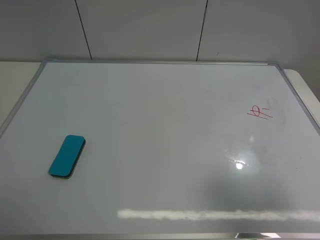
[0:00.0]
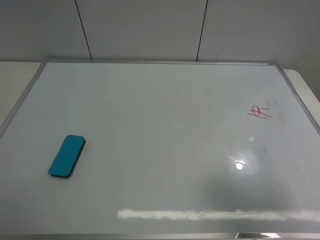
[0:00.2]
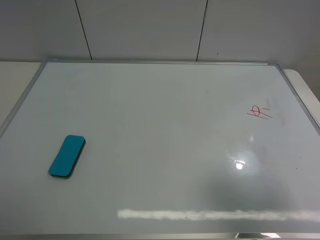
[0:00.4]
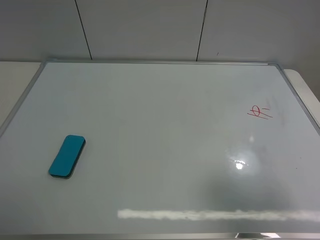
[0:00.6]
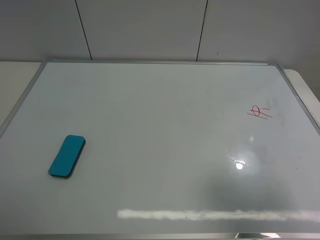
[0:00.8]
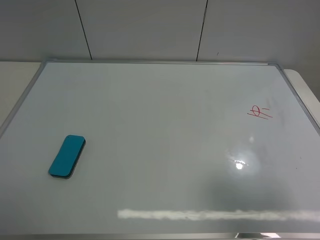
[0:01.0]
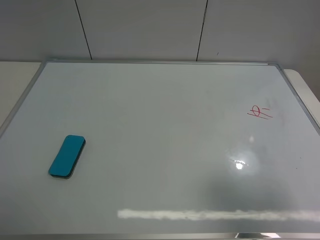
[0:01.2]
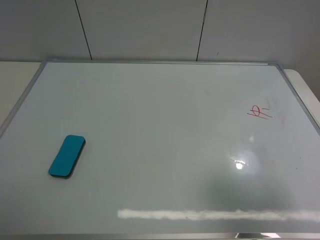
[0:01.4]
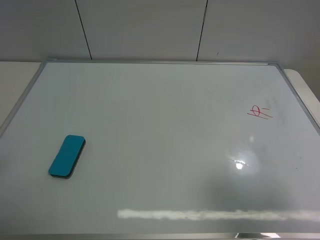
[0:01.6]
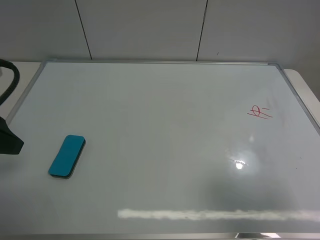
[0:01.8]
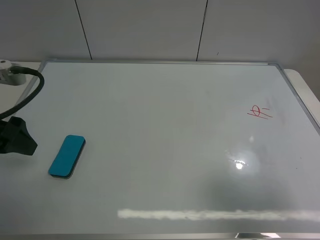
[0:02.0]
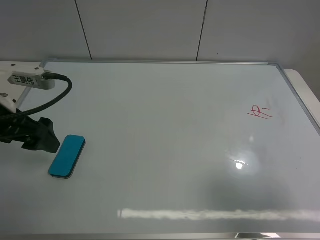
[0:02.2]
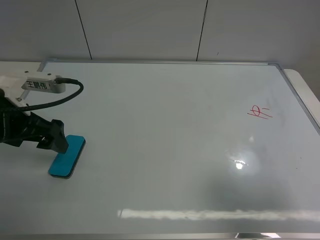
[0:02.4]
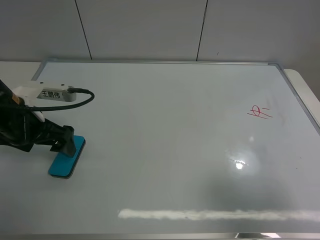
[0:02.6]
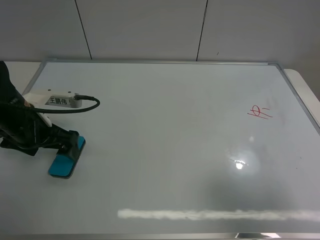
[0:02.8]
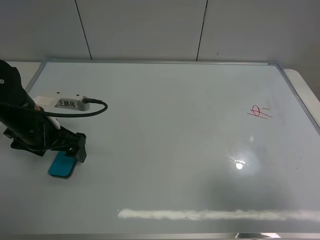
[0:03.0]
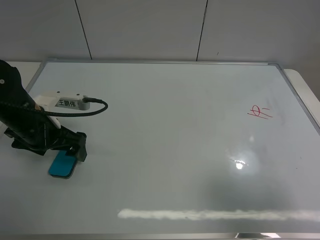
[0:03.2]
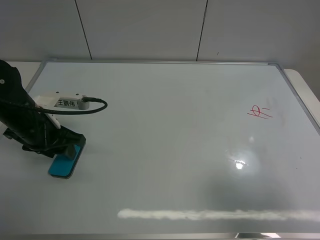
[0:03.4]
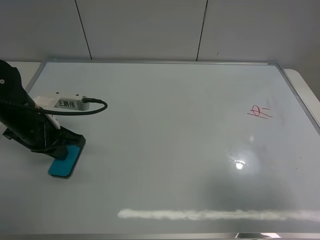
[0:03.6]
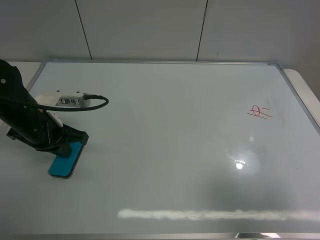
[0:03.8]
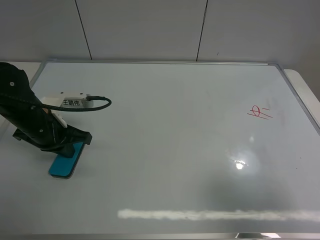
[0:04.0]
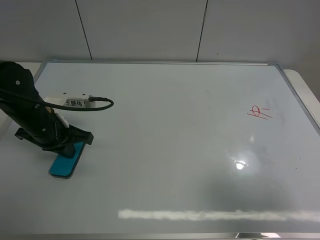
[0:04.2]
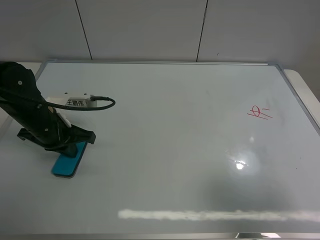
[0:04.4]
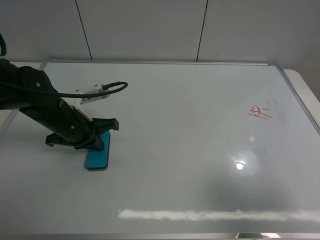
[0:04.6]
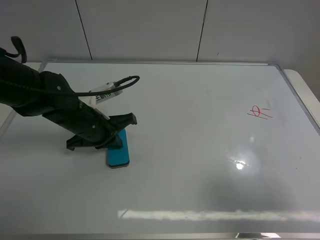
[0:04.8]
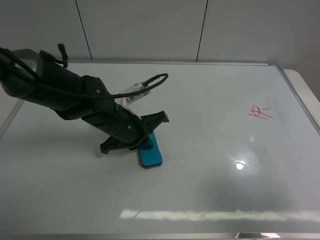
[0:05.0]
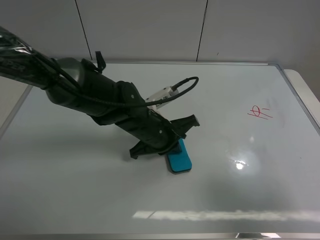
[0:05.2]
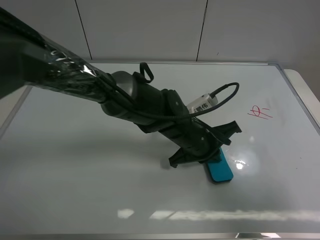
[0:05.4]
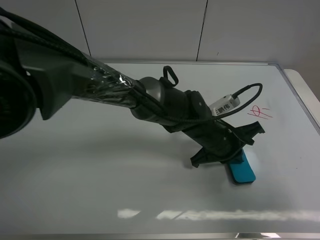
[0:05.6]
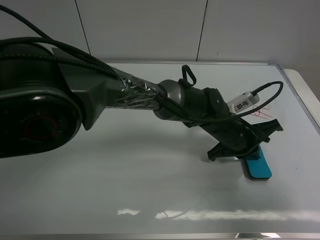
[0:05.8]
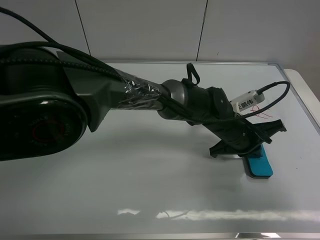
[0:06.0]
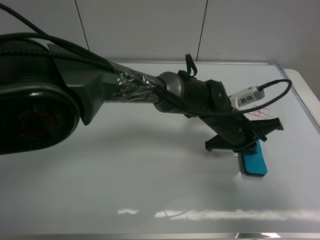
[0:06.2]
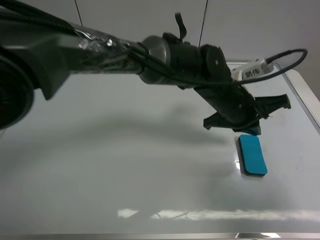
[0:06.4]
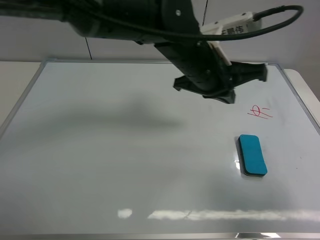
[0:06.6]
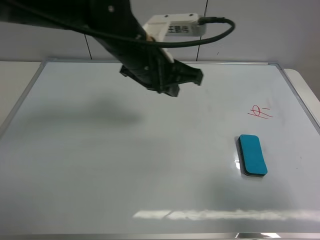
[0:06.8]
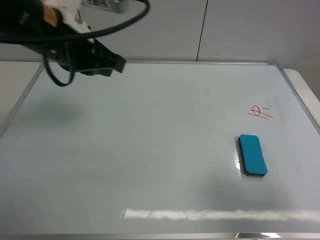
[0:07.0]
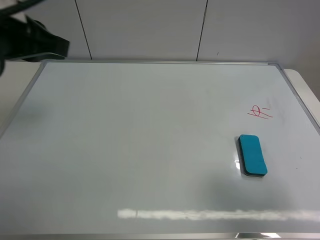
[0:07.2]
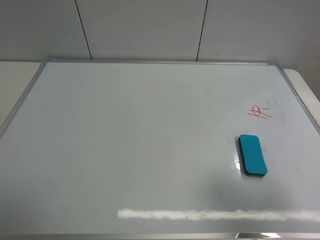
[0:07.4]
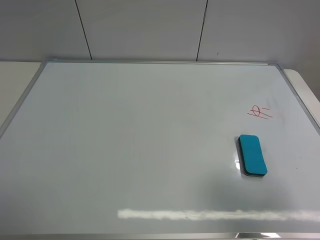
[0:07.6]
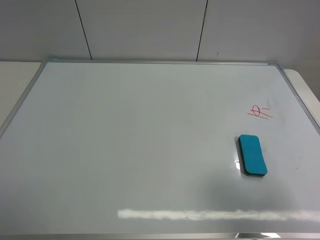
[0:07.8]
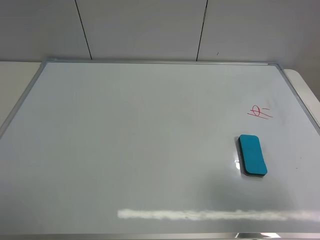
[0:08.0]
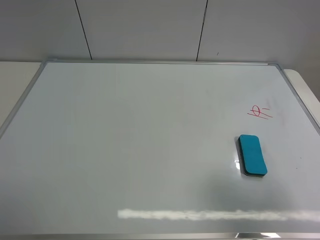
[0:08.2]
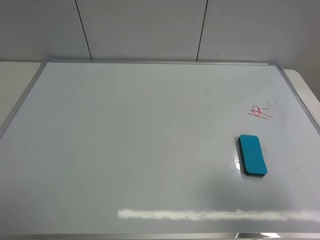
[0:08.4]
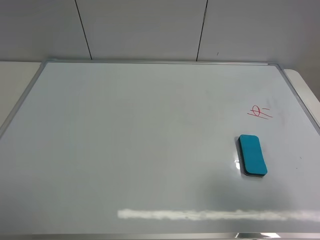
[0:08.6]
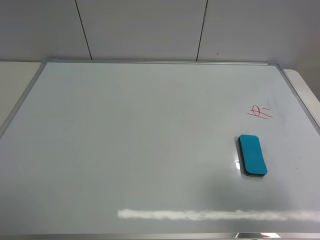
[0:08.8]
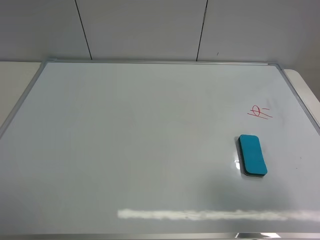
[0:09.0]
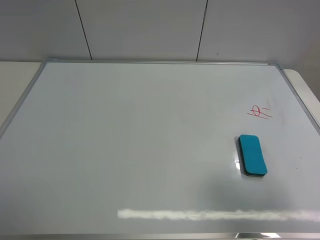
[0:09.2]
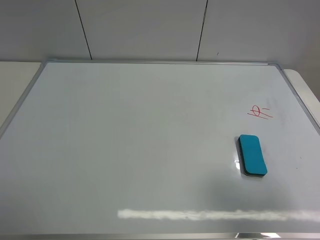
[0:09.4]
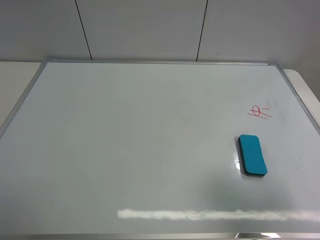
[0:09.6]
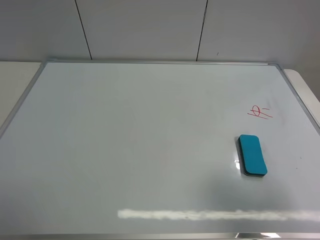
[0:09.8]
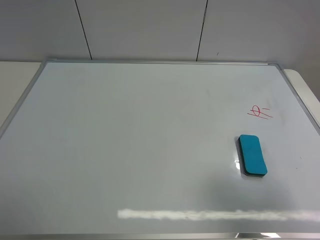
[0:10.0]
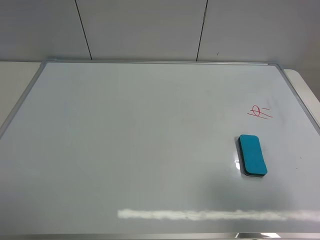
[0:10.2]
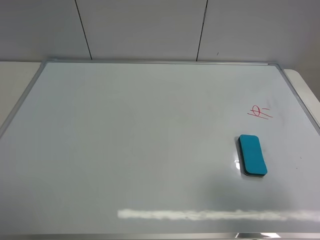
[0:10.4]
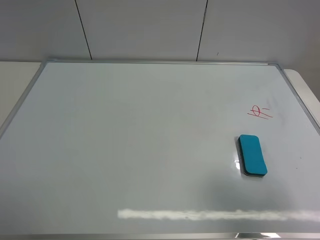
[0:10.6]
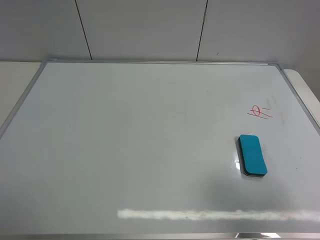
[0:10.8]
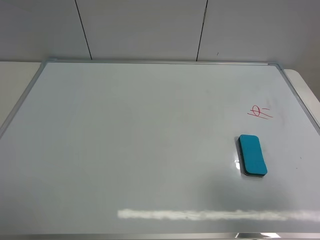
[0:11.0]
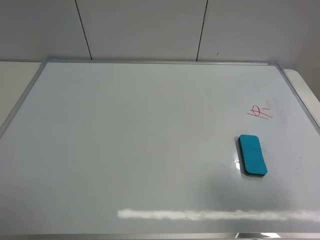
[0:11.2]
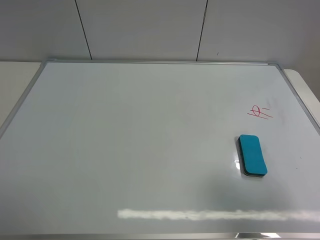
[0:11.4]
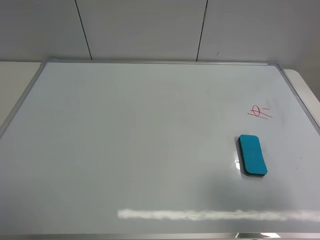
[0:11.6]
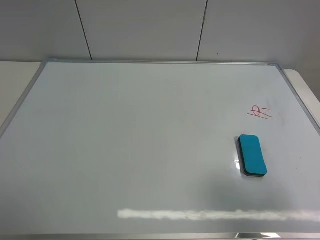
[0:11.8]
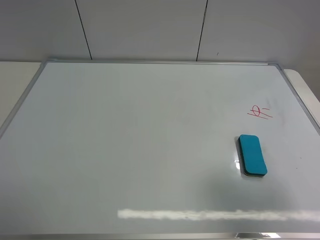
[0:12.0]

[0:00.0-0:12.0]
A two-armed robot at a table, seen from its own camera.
Task of the whole recording: use the left gripper to place the eraser in the right, use the right gripper to pick up the eraser, wipe the notes on the whiteboard clean, and then put it down.
Step, 0:00.0 to 0:06.2: Move the board eraser to the right of the whiteboard with left gripper.
0:01.6 to 0:03.0: The left gripper heads downward, forward and to the right, covering about 20 cm.
0:03.0 to 0:04.4: The left gripper closes.
0:04.4 to 0:06.0: The left gripper shifts approximately 35 cm to the right.
0:06.0 to 0:07.6: The left gripper heads to the left, upward and backward, covering some 60 cm.
0:10.4 to 0:12.0: Both grippers stay put.

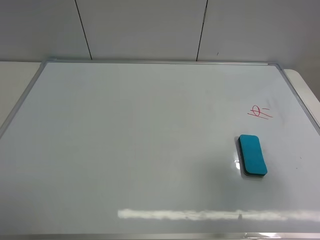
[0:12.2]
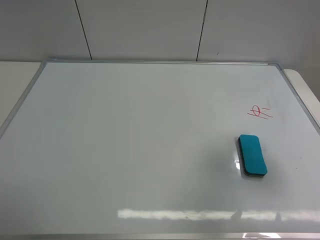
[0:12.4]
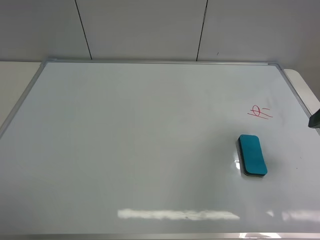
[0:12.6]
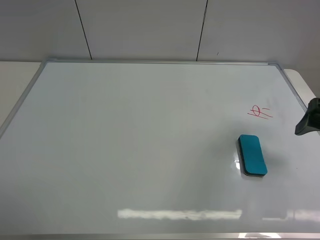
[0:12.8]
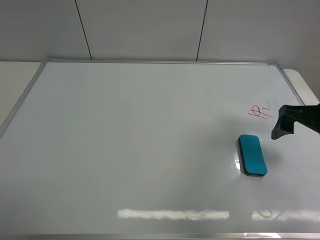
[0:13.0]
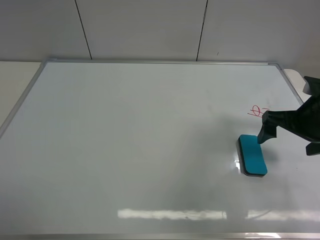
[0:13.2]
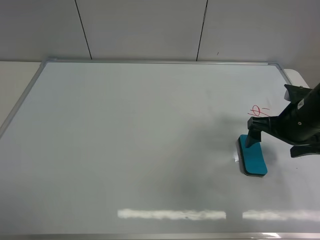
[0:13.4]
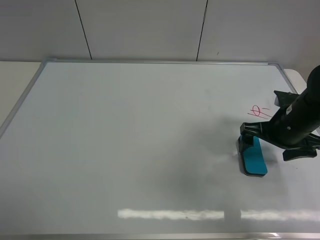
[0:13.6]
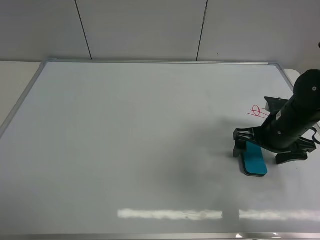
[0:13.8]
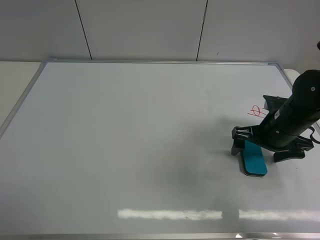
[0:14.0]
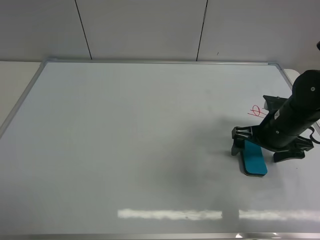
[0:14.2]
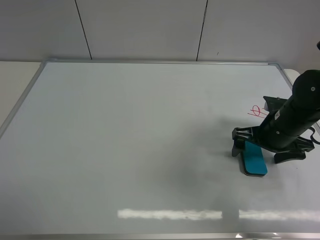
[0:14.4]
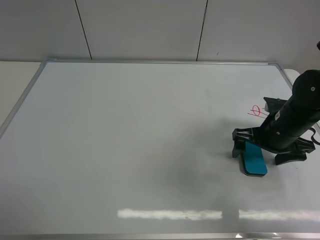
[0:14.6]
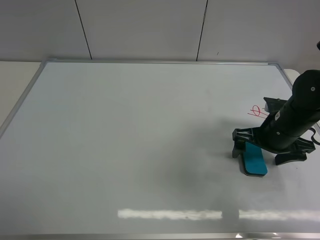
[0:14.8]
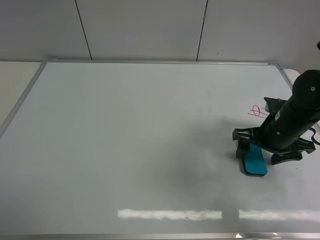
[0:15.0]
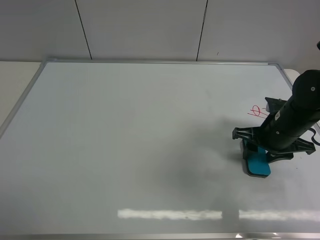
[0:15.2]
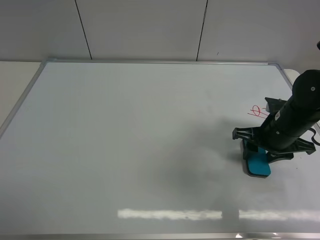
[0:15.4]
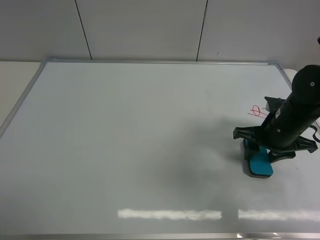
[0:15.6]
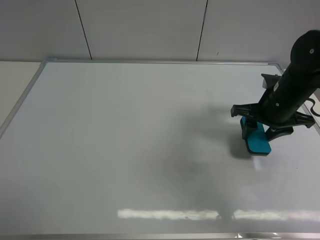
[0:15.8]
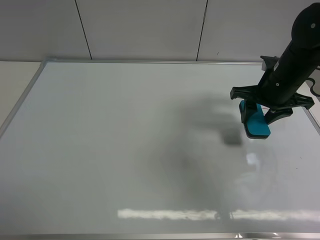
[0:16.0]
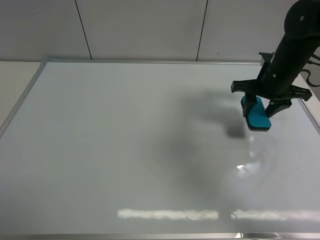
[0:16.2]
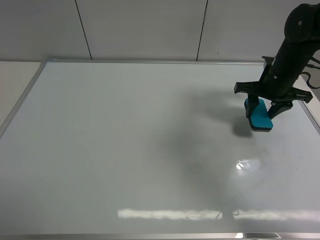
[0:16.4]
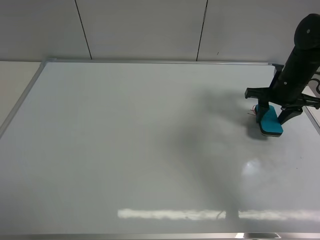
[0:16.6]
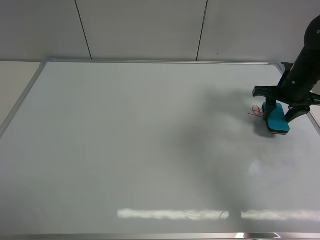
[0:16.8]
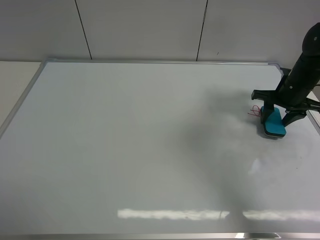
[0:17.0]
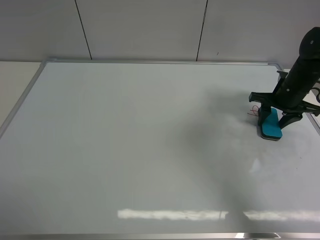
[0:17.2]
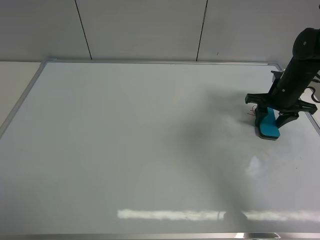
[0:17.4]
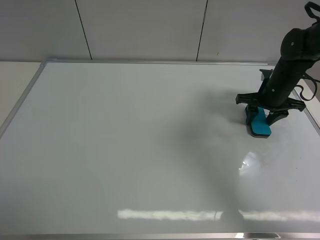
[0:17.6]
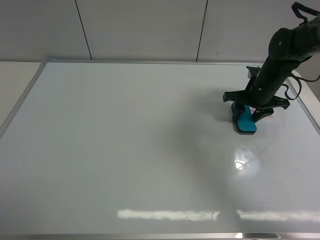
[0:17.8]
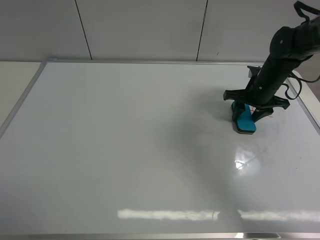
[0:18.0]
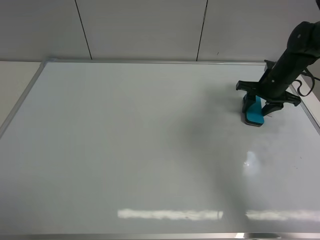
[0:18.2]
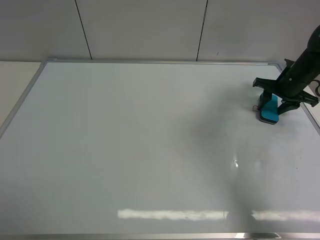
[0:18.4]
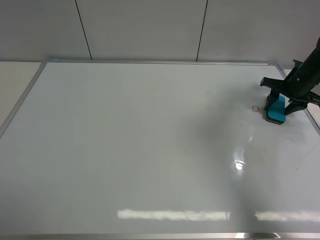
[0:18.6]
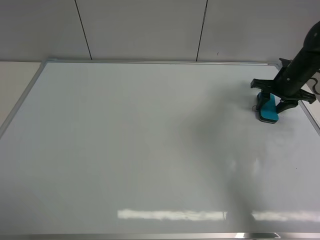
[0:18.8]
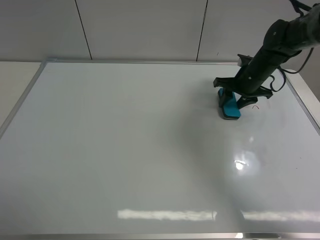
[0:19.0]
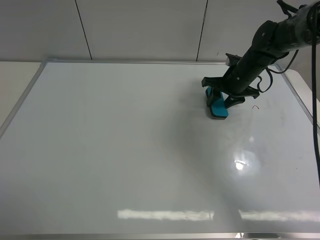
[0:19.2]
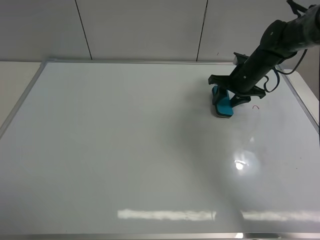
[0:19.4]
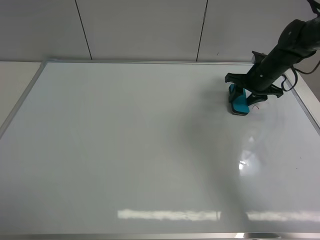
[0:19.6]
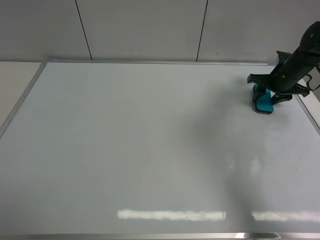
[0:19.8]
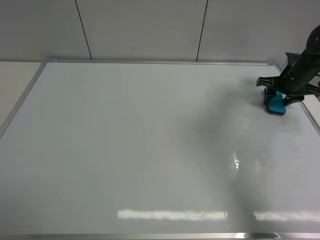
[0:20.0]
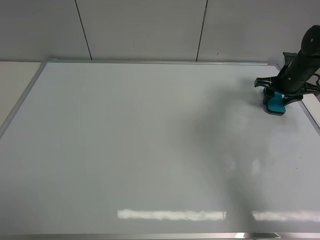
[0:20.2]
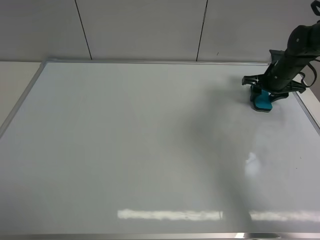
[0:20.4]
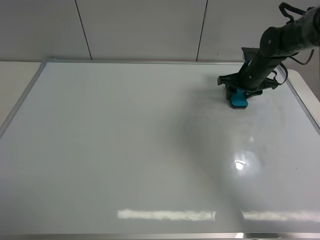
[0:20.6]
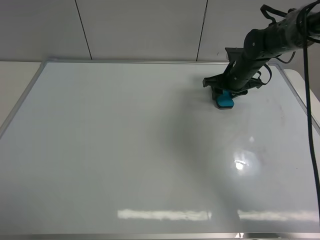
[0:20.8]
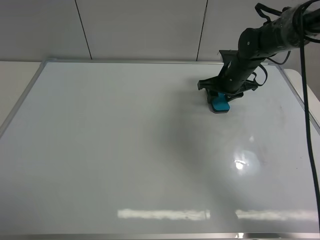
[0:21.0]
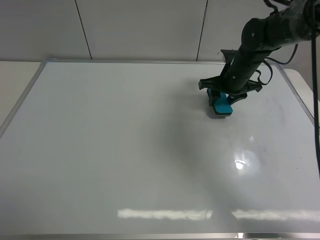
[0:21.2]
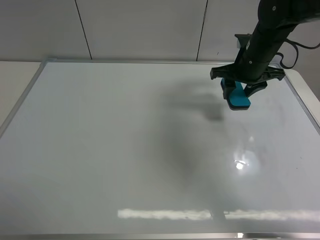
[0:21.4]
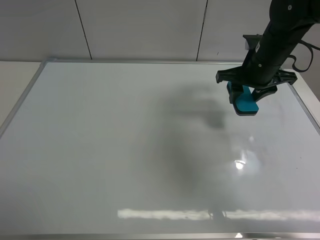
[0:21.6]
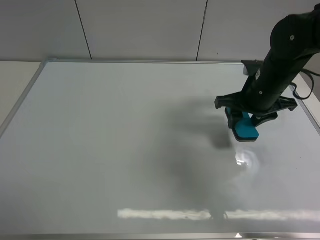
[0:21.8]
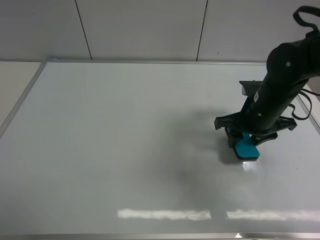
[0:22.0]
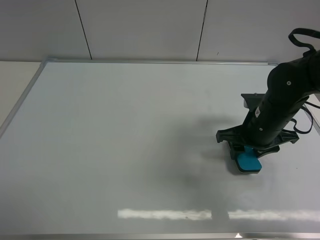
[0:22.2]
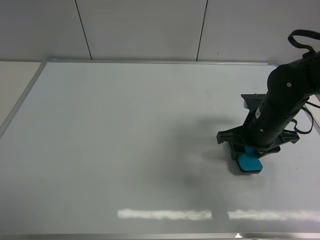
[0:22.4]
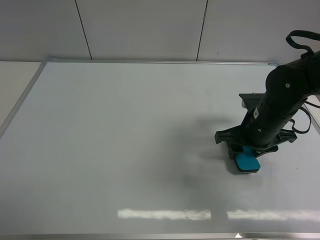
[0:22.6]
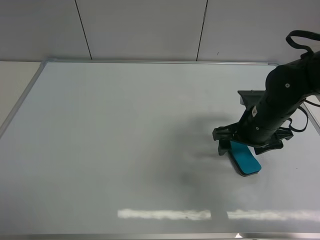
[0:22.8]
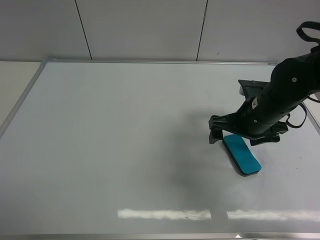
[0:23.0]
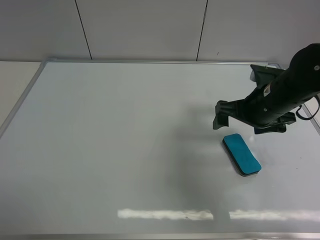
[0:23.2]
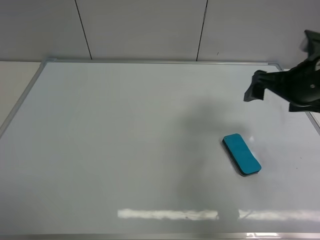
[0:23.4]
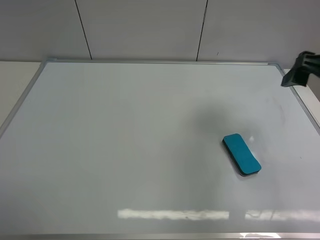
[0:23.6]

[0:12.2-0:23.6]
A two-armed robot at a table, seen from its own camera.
Task of the whole recording: use the left gripper to place the eraser in the right, use the right gripper to pick up the eraser, wipe the notes on the whiteboard clean, and then put it down.
Step, 0:12.2 to 0:15.6: Pick up the board eraser with right gripper.
Step, 0:15.8 to 0:21.0: Wipe off the writing on the board with right gripper.
Step, 0:21.2 to 0:23.0: Place the board eraser on the right side of board with right gripper.
0:12.2 to 0:13.6: The right gripper moves forward and downward, roughly 25 cm.
0:13.6 to 0:15.0: The right gripper closes up.
0:15.0 to 0:16.4: The right gripper shifts about 10 cm forward, and closes up.
0:16.4 to 0:17.8: The right gripper travels downward by about 5 cm.
0:17.8 to 0:19.4: The right gripper travels to the right and back again, roughly 10 cm each way.
0:19.4 to 0:20.8: The right gripper reaches approximately 10 cm to the right, then returns.
0:20.8 to 0:22.2: The right gripper shifts about 20 cm backward.
0:22.2 to 0:23.6: The right gripper heads upward and to the right, covering roughly 20 cm, and opens.
